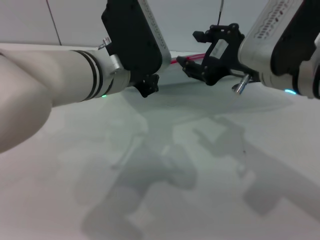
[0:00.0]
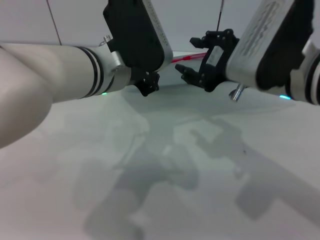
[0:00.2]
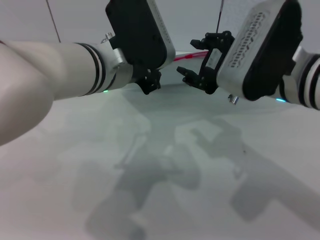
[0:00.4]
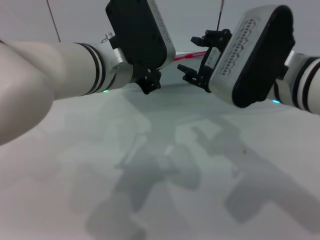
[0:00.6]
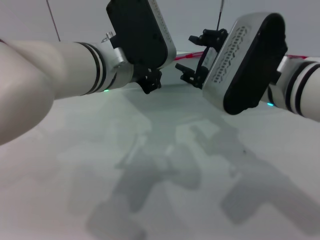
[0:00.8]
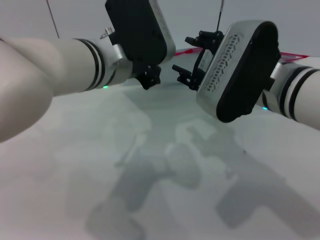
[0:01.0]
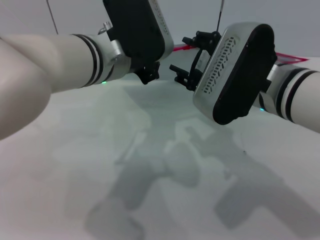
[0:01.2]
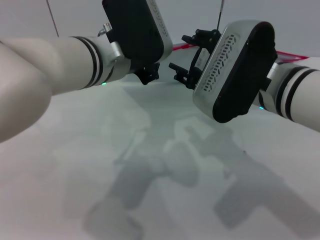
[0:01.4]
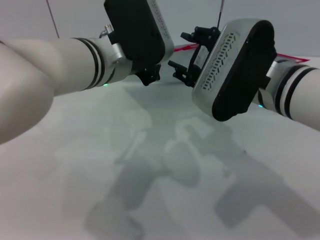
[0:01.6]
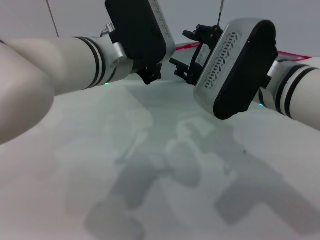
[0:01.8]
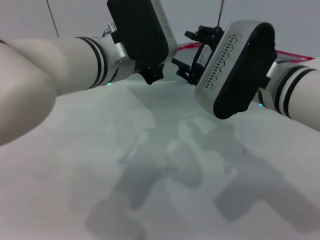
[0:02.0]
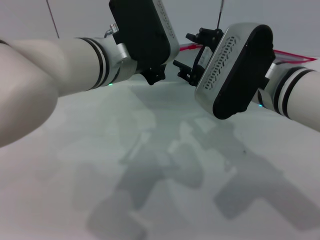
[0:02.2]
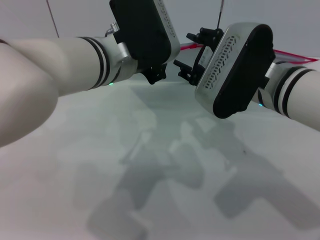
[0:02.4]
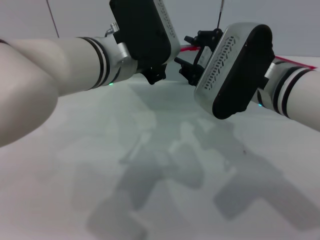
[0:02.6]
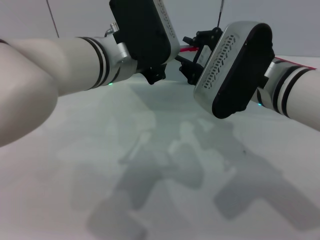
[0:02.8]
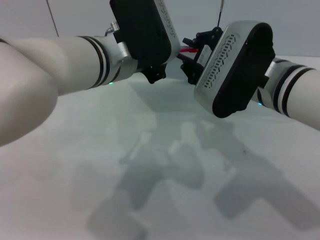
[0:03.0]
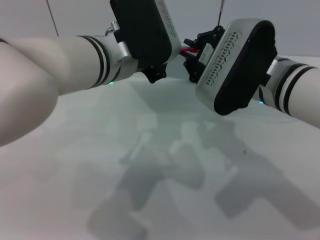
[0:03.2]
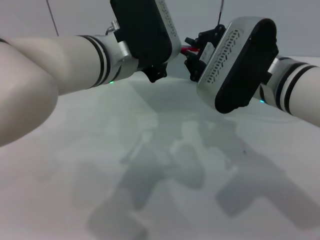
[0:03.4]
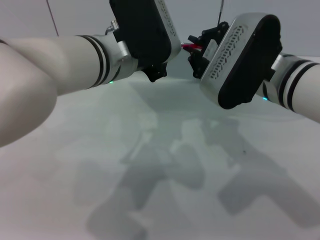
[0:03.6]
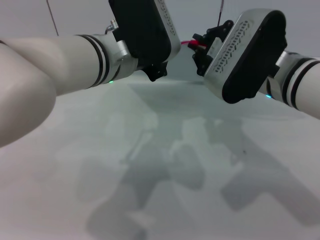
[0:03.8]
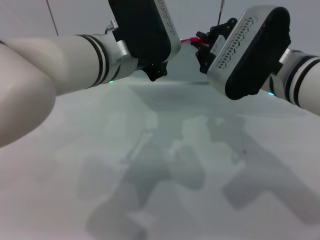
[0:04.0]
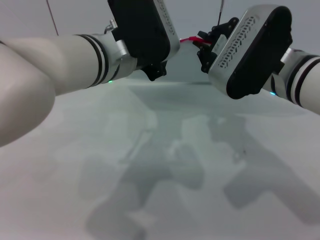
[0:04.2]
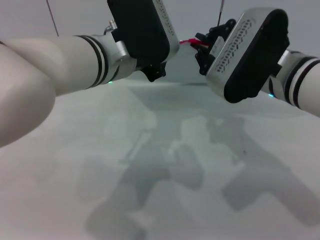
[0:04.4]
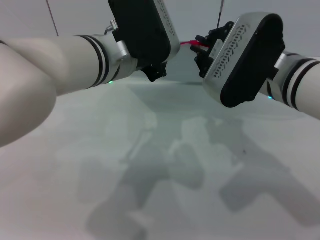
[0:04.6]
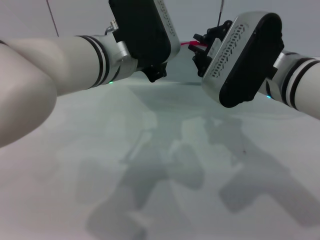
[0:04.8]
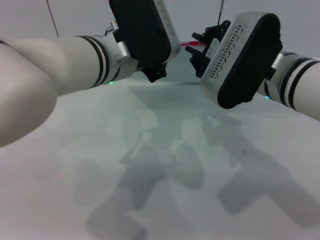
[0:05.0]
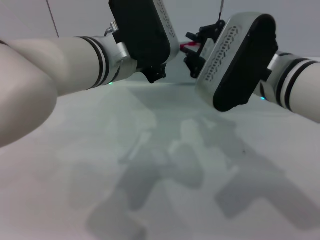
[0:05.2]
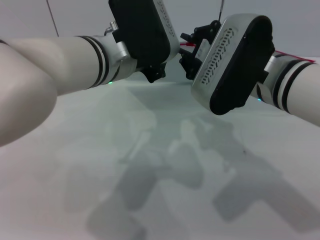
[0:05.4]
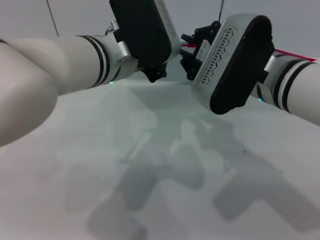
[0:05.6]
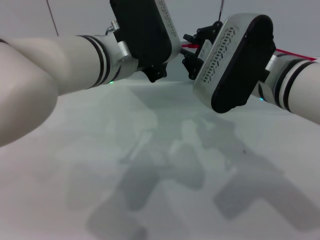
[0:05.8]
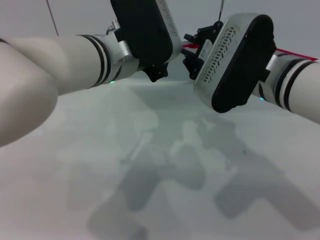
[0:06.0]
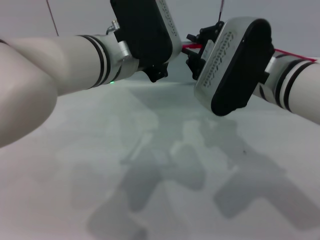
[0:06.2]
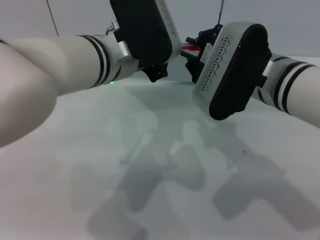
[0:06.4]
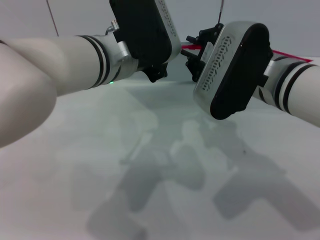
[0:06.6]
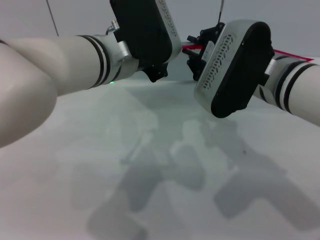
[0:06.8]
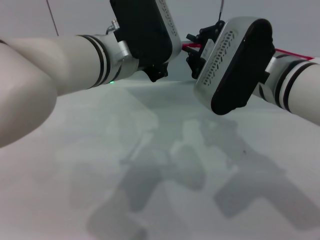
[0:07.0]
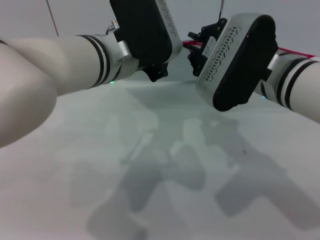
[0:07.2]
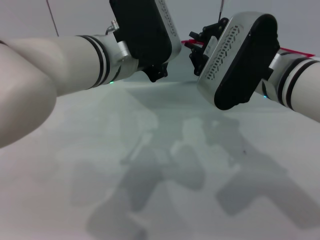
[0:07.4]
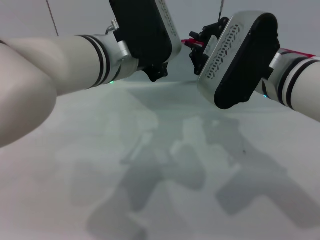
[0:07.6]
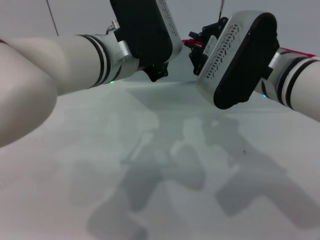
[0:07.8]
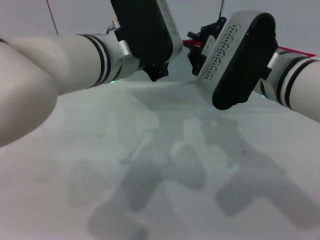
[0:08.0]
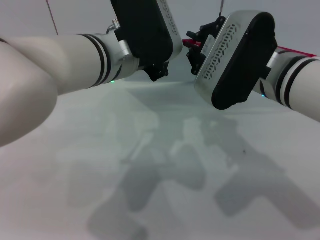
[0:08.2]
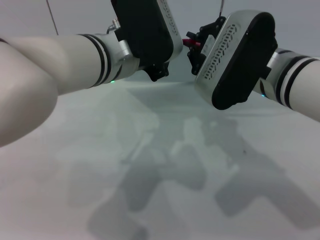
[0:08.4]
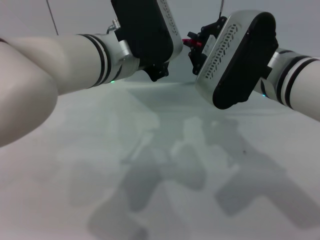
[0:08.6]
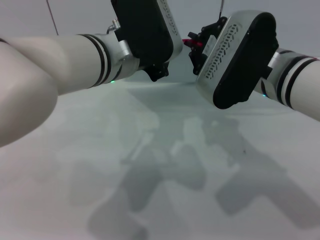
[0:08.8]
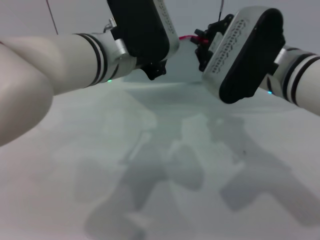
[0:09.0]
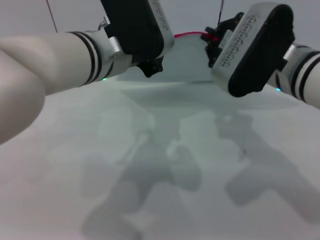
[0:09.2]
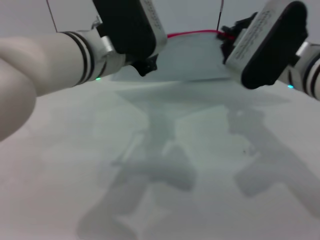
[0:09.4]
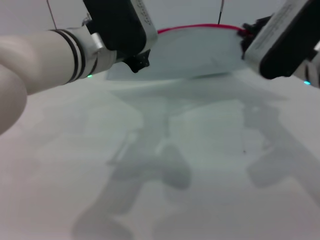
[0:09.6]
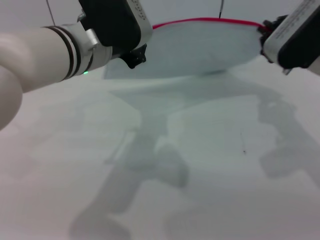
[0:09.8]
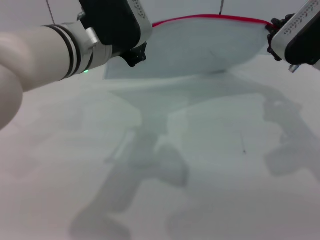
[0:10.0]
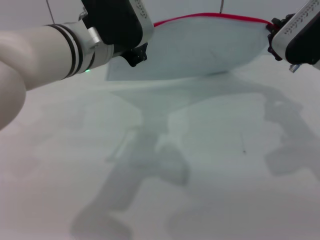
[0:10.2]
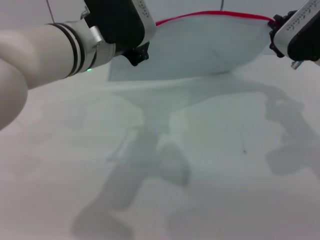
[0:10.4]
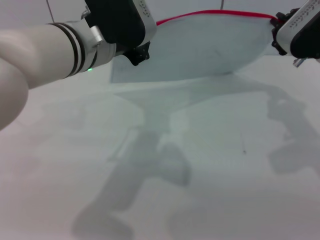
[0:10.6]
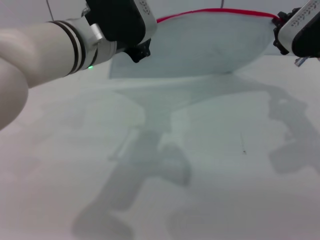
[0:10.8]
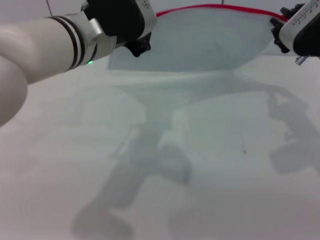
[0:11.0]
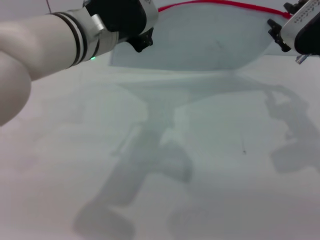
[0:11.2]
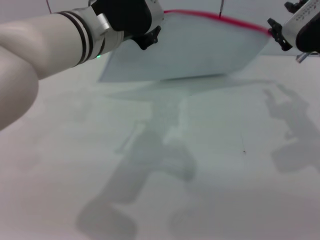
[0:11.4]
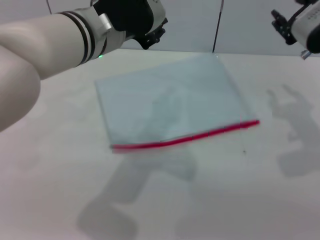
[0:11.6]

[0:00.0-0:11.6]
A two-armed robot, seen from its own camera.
Step, 0:00.0 to 0:11.0: Pulling up the zipper on the transparent plastic bag with the right gripper to close it.
0:01.4 to 0:02.8: The grippers move only a little.
0:02.8 to 0:04.4: The right gripper closes up.
0:04.4 to 0:05.8: The grippers make only small movements.
0:05.8 to 0:08.8: Both grippers stay about where they are.
0:08.8 to 0:10.2: The right gripper is displaced to the right by about 10 cm.
0:10.2 to 0:11.6: The right gripper opens its fingers.

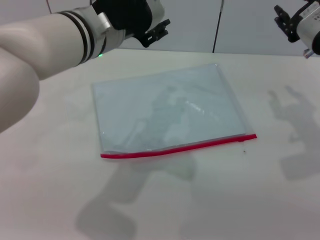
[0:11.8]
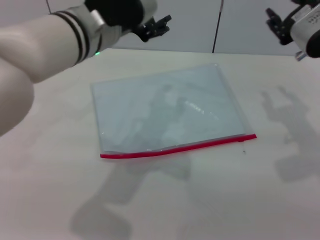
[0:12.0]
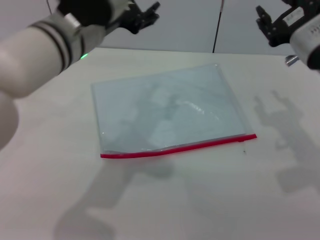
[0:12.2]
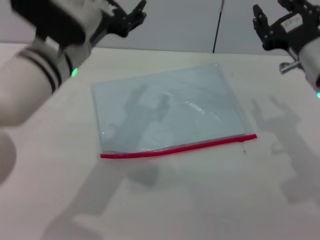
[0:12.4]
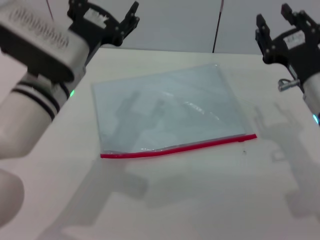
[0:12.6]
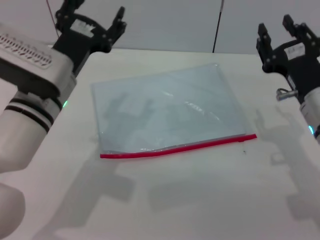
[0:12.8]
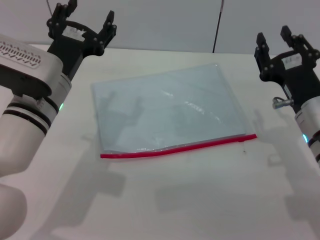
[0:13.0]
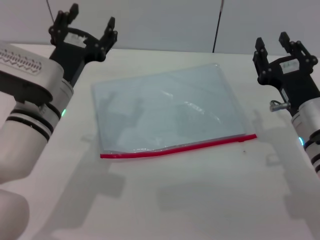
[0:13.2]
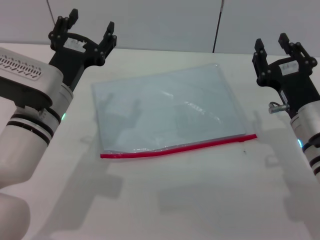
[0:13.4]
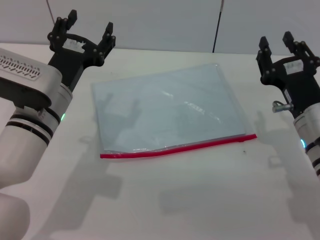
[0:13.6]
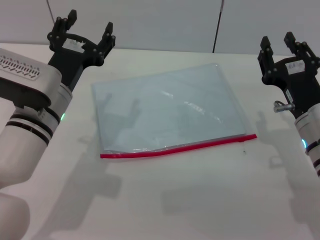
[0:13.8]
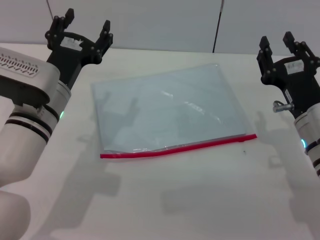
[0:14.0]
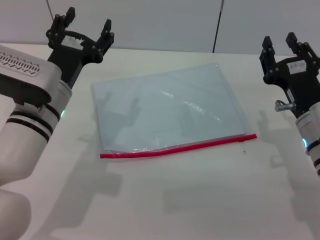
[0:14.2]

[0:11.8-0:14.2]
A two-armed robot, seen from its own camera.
0:11.8 to 0:13.0: The left gripper travels downward and to the left by about 10 cm, and opens its fingers, while the right gripper heads downward and backward, covering some 10 cm.
0:13.0 to 0:14.2: The grippers make only small movements.
